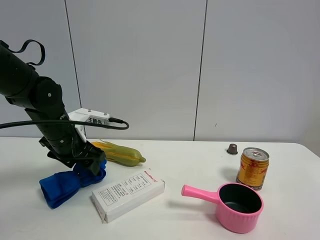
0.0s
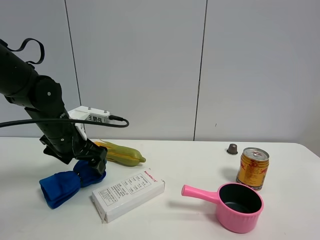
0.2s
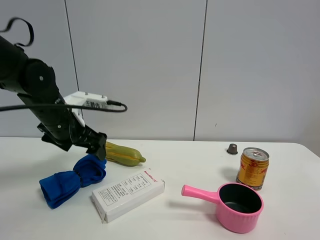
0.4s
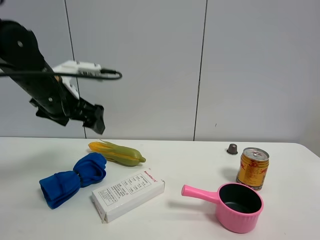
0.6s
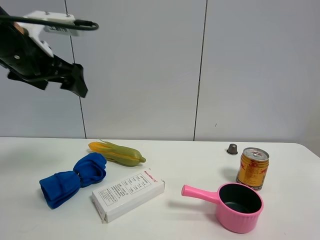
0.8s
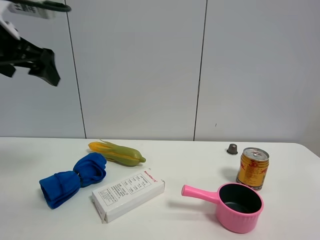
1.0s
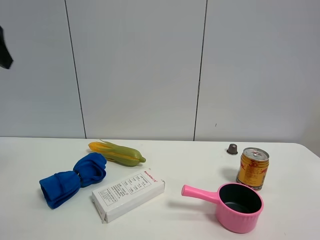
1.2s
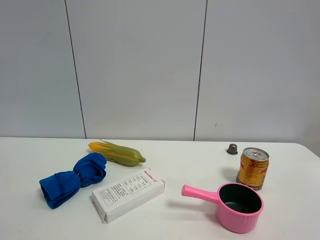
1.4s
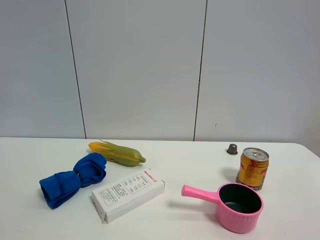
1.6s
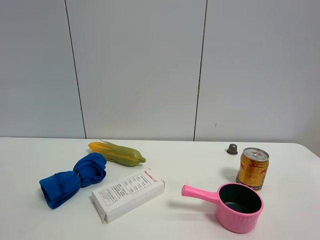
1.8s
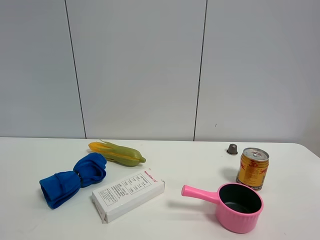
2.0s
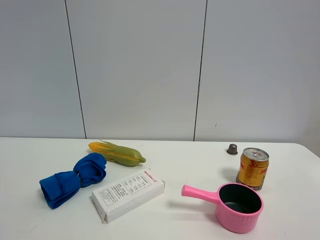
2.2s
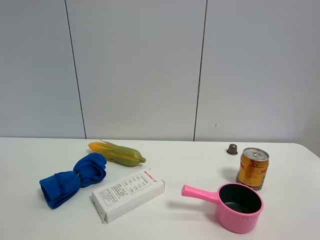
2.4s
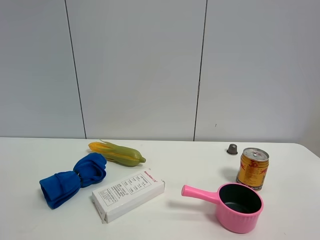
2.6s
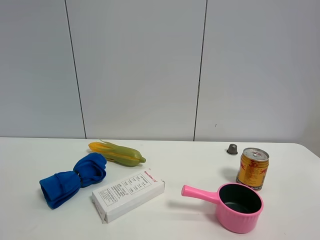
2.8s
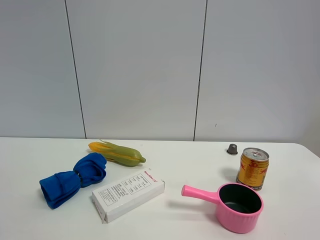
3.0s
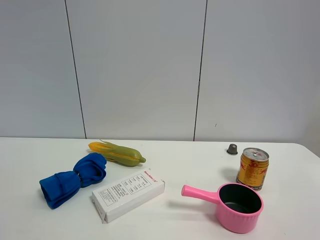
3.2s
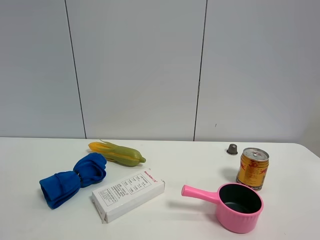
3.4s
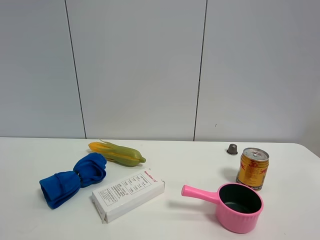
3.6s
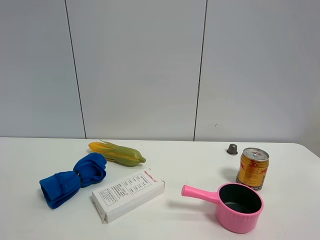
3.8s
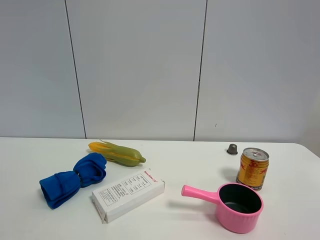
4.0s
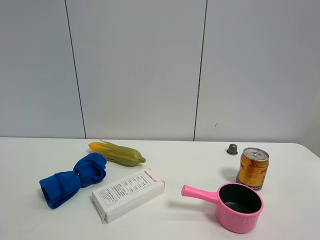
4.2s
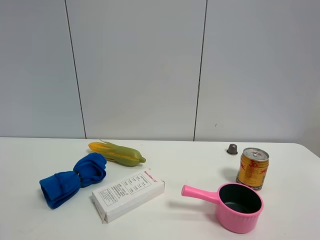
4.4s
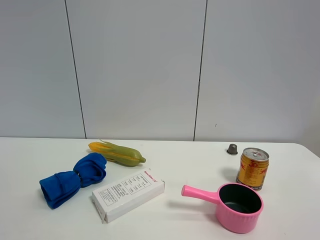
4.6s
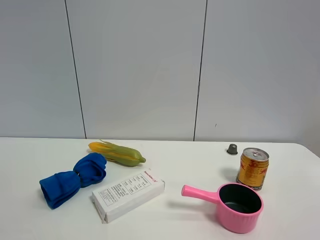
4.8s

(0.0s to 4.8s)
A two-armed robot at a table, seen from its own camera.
Task of the whole recording: the gripper move the object.
0.0s - 1.6s: The left gripper heads upward, backward and to the left, covering some 35 cm.
3.2s - 4.8s: The two grippers keep their place.

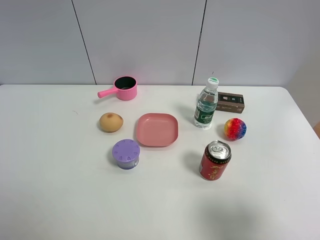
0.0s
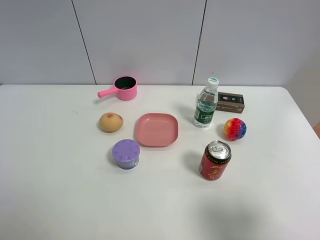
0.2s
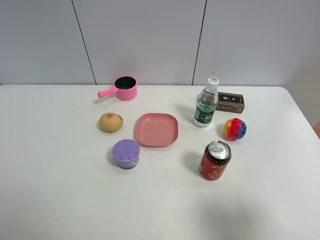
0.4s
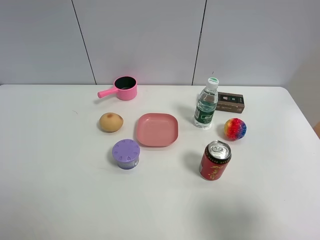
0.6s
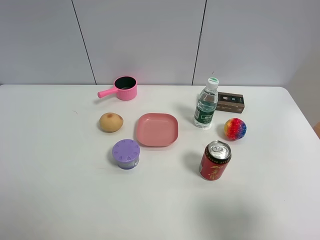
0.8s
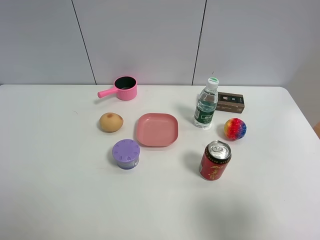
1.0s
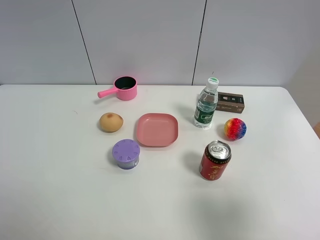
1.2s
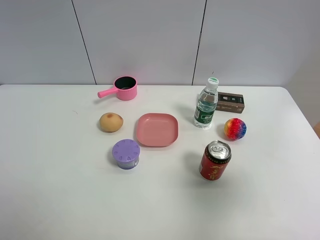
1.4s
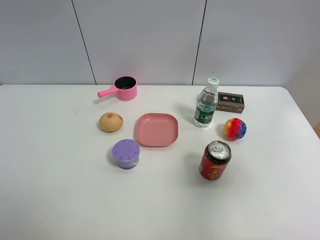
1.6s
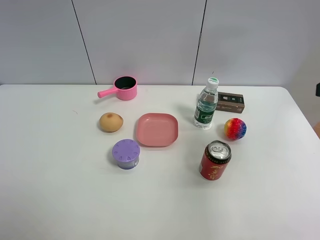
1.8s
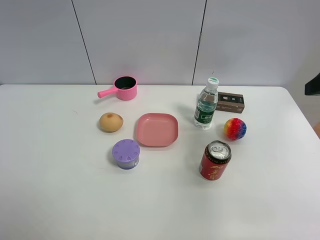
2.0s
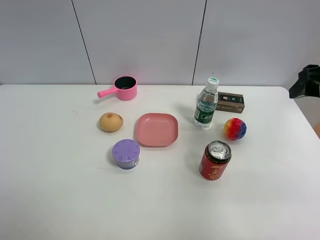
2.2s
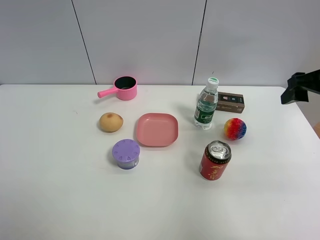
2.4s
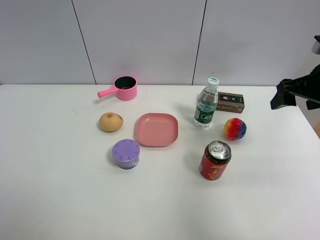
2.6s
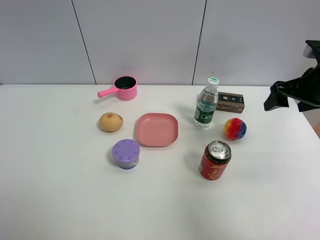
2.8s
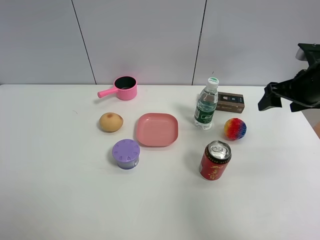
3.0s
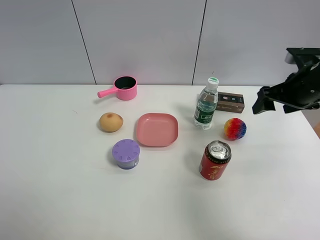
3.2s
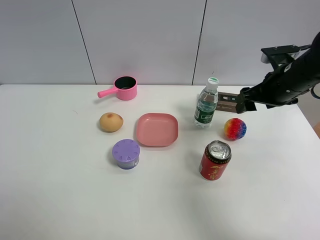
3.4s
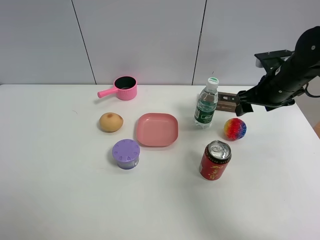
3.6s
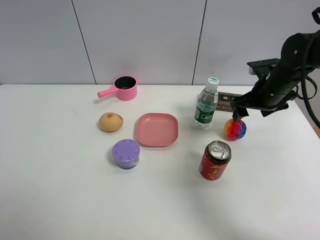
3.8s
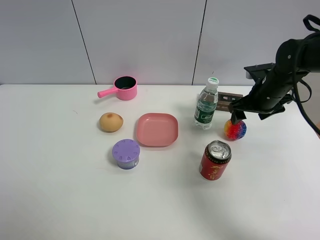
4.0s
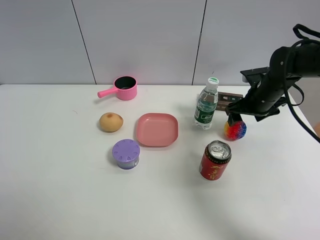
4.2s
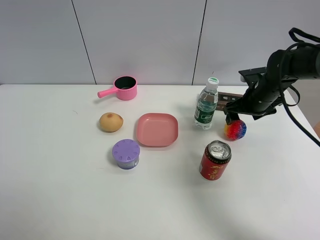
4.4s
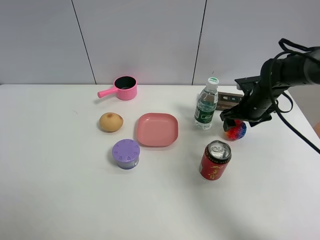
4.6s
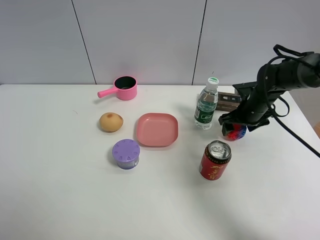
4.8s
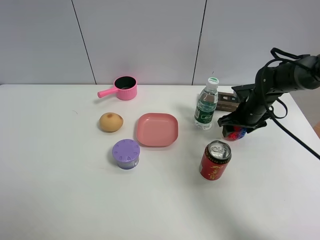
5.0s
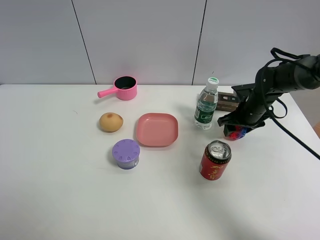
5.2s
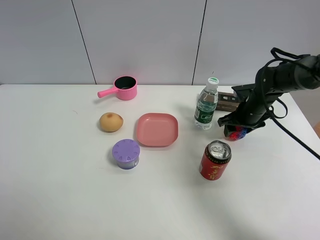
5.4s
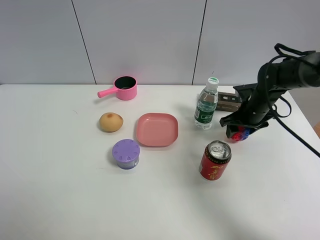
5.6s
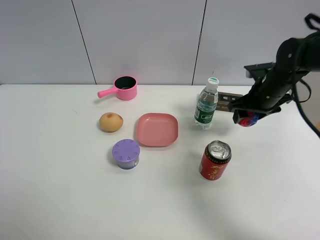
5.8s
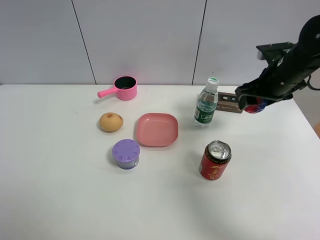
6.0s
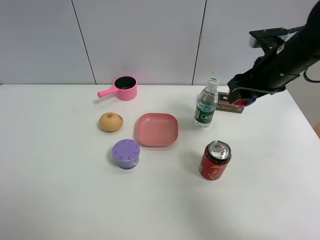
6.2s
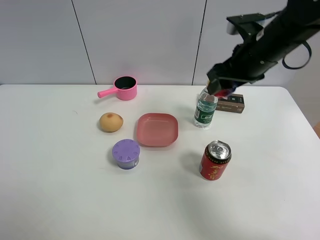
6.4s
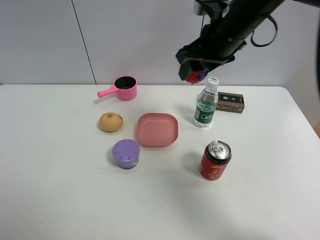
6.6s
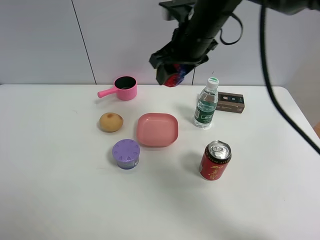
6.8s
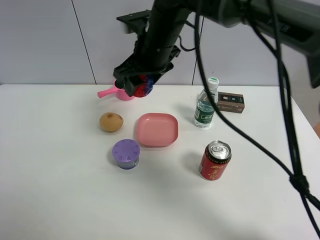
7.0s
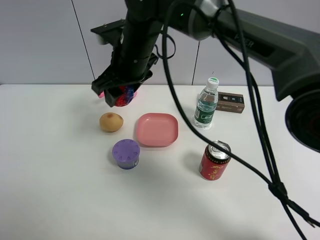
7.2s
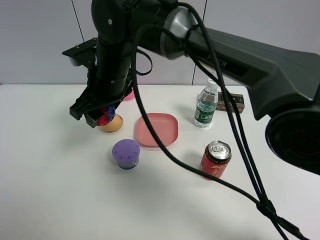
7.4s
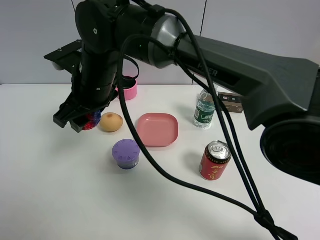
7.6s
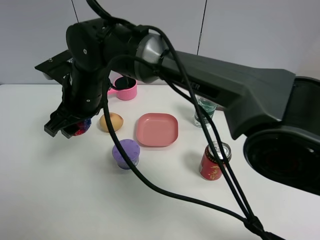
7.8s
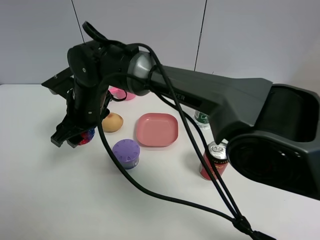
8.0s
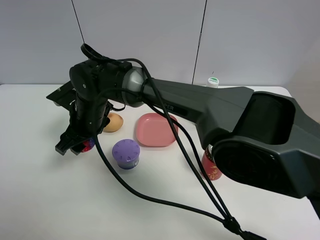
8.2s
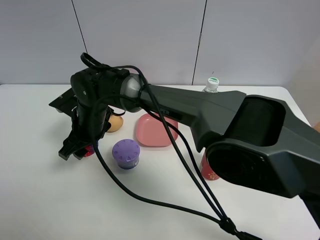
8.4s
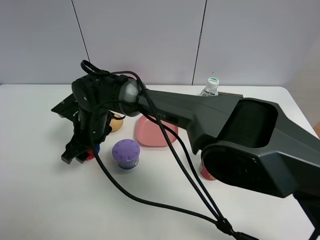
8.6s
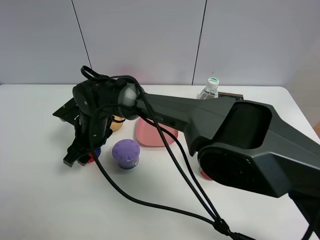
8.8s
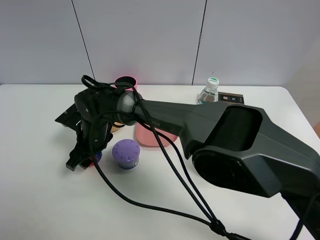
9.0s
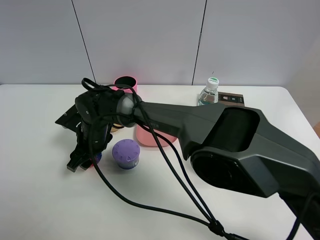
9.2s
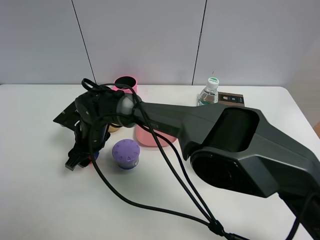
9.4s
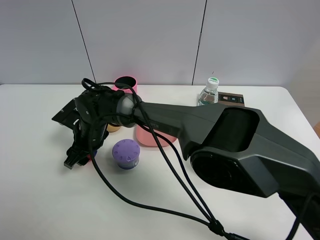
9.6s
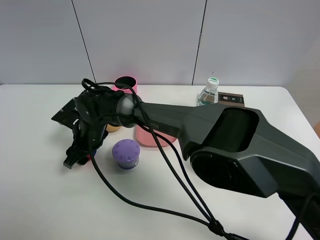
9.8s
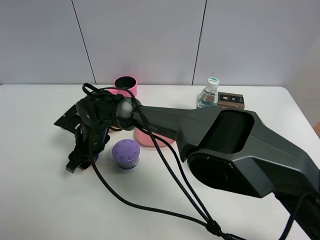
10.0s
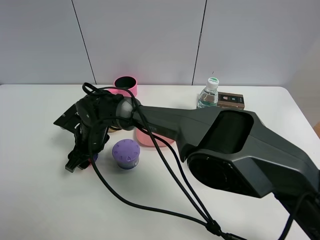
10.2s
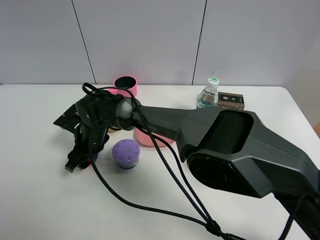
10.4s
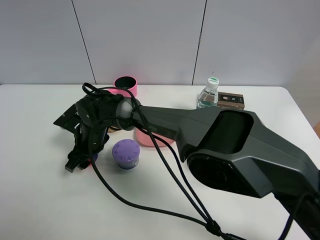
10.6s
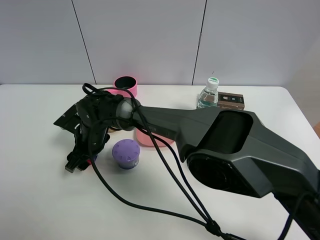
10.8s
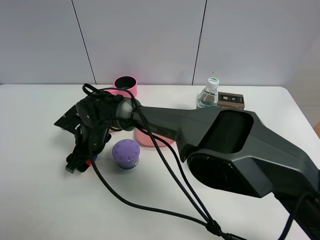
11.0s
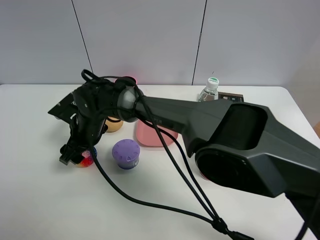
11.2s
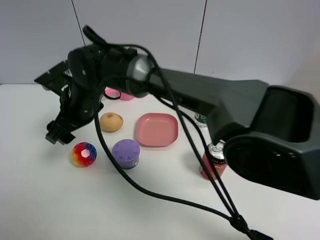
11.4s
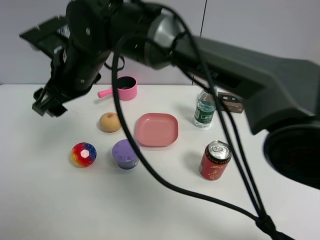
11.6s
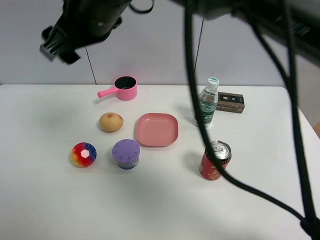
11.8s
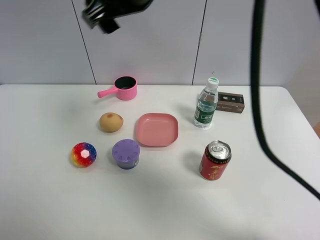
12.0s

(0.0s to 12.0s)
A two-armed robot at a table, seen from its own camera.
Task of the whole recording: the gripper move the object.
Step, 0.0s - 5.2s: Grasp the colorful ball with the right gripper.
Step, 5.4s - 11.2s: Place the colorful ball on the table with the right gripper.
0.0s - 1.6s: The right gripper heads forward and upward, covering about 15 cm.
1.6s - 3.0s: The right gripper is displaced forward and downward by roughly 20 cm.
3.0s - 4.4s: The right gripper heads downward, forward and to the left, covering some 15 cm.
4.4s - 6.0s: The right gripper heads upward, covering approximately 10 cm, and closes up.
6.0s - 7.6s: The right gripper goes roughly 35 cm to the left.
7.6s - 9.0s: The right gripper travels downward by approximately 15 cm.
9.0s - 10.4s: The grippers stay close to where they were, moving slightly.
10.4s - 12.0s: The right gripper goes roughly 35 cm upward and to the right, and opens.

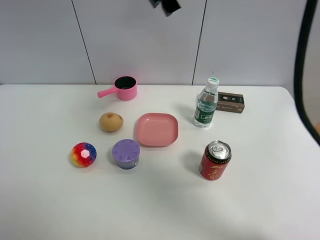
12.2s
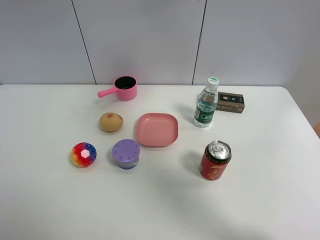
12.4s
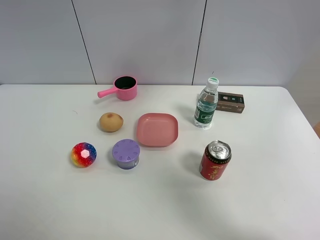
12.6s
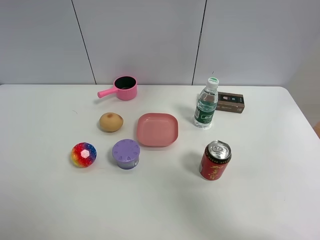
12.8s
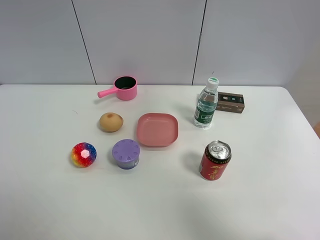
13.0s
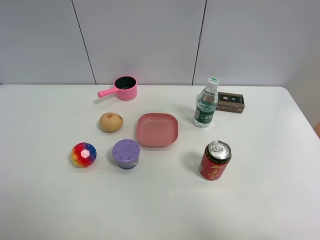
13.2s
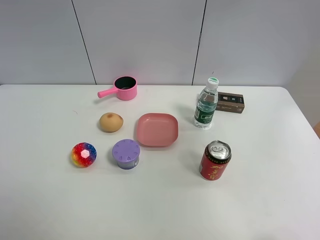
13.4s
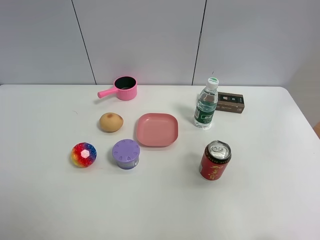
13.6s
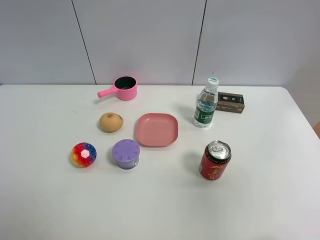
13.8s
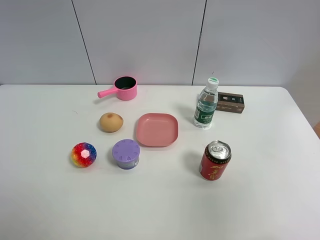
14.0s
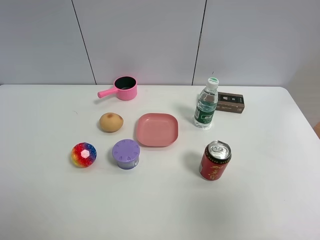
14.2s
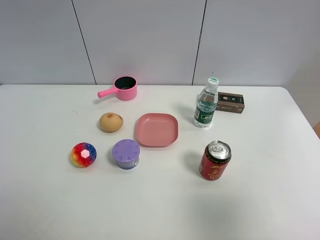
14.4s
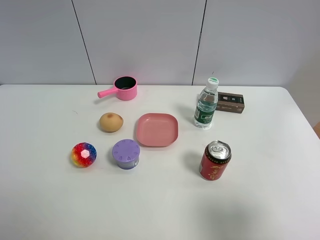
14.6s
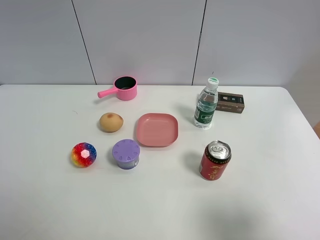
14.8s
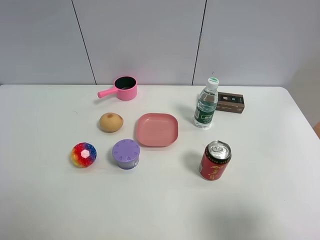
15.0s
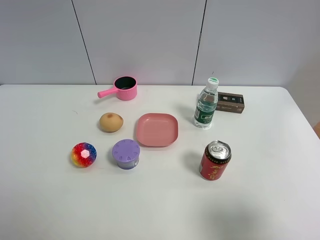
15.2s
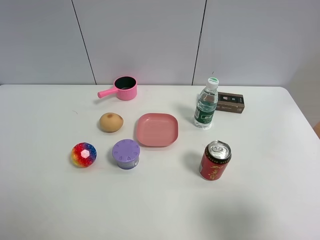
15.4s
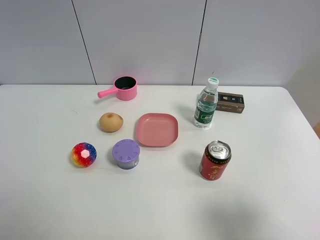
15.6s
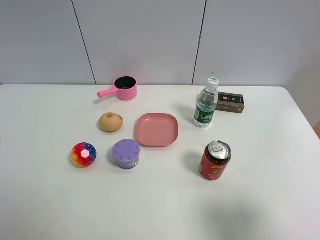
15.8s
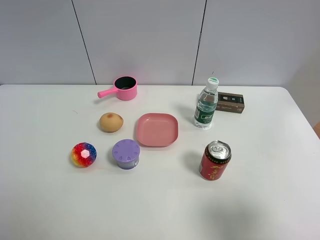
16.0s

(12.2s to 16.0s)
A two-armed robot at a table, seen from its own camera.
Task of the whole recording: the gripper move the object.
12.2s - 13.4s: The right gripper shifts some 35 cm backward and to the right.
13.4s - 14.8s: The right gripper is displaced downward by some 25 cm.

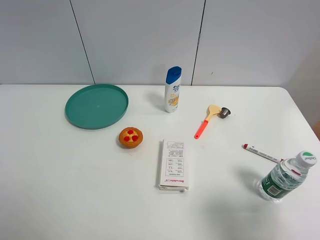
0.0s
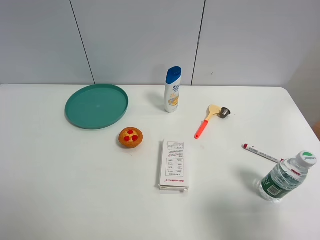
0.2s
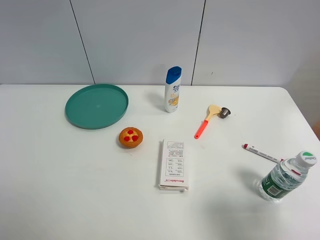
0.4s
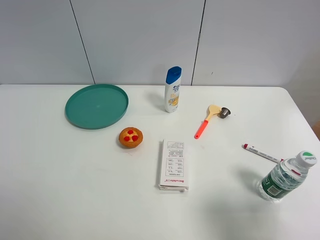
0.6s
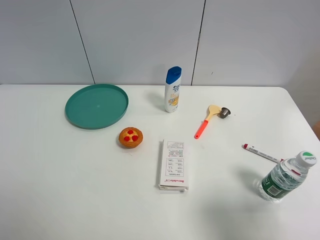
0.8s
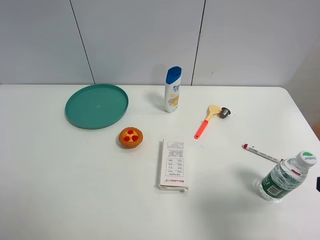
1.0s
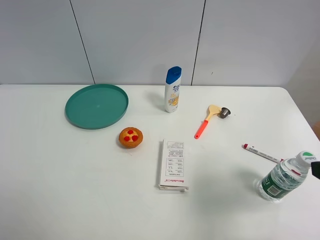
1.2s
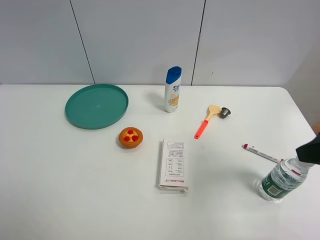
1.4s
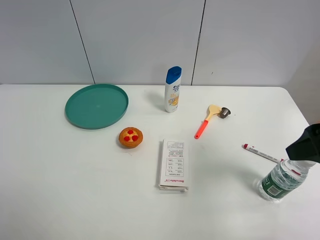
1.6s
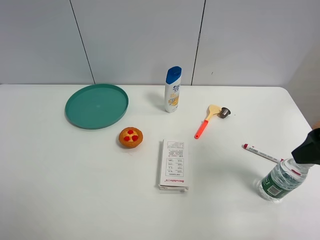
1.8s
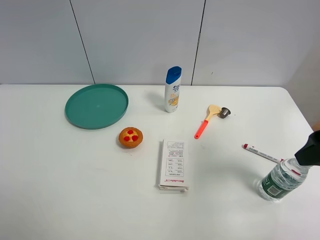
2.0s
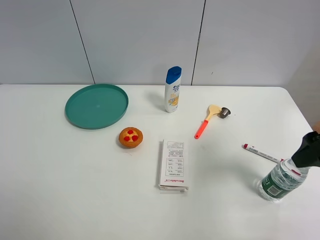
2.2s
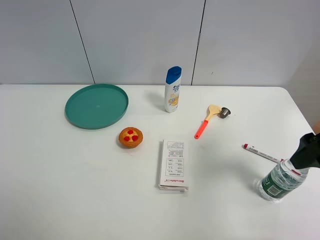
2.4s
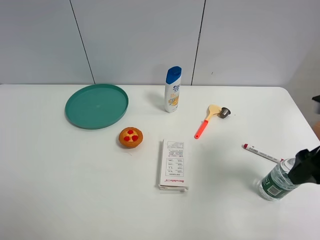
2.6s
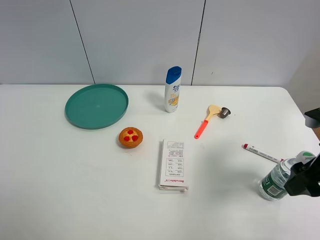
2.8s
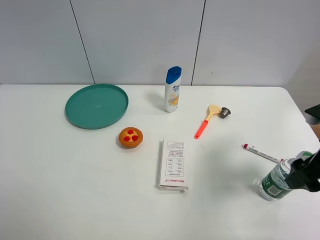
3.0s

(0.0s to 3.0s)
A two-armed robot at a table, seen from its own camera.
Task of the whole recording: the gripper move the object.
0.0s - 1.6s: The right gripper moves forward, roughly 15 cm.
1.6s - 3.0s: The right gripper shifts some 10 cm downward.
